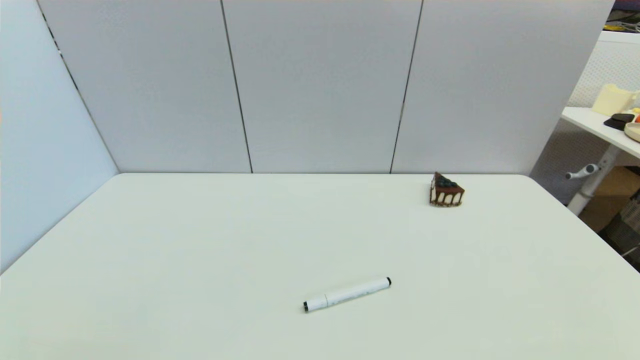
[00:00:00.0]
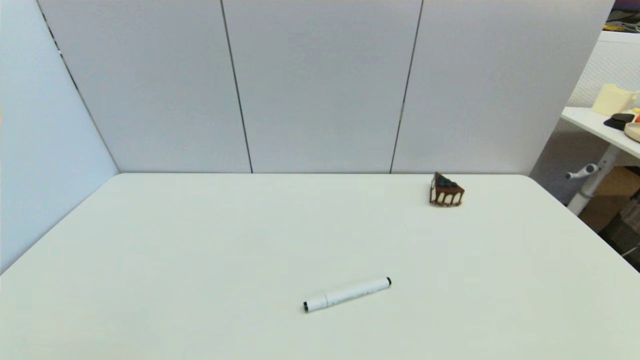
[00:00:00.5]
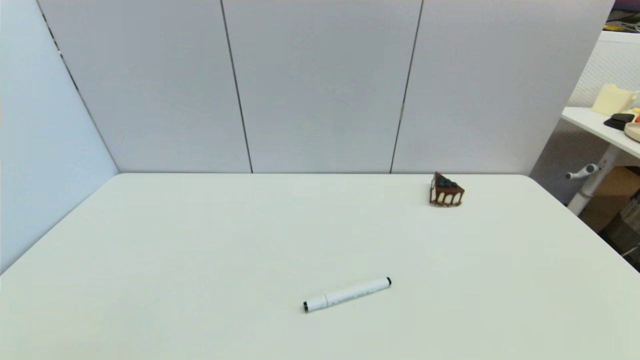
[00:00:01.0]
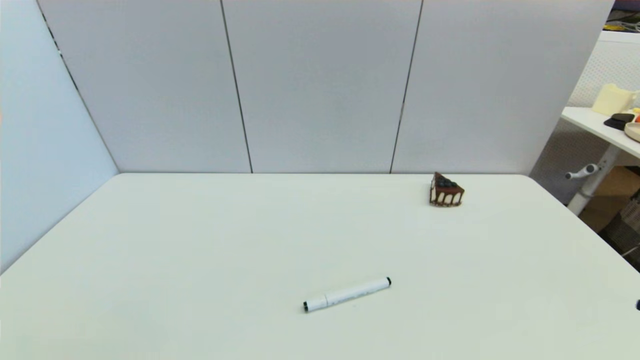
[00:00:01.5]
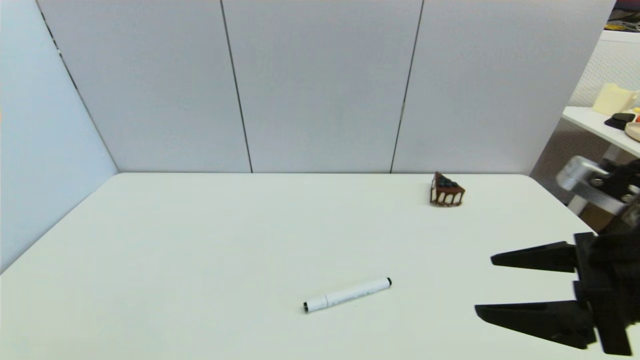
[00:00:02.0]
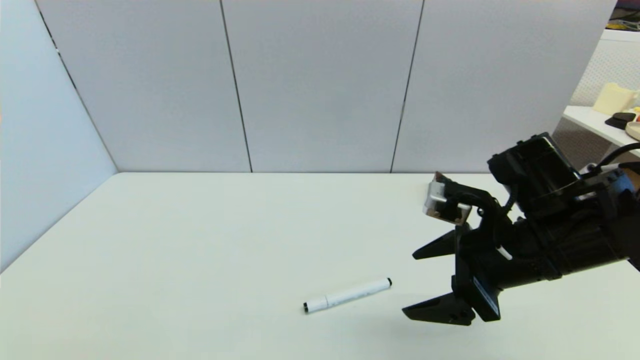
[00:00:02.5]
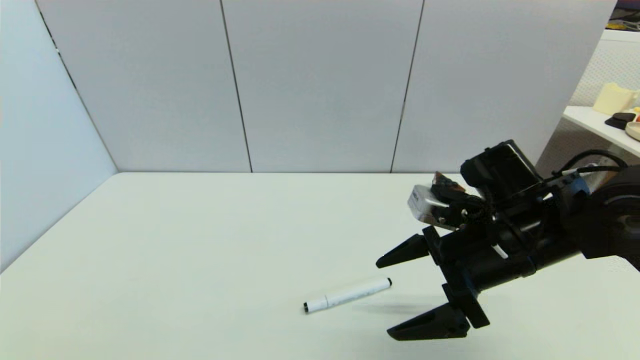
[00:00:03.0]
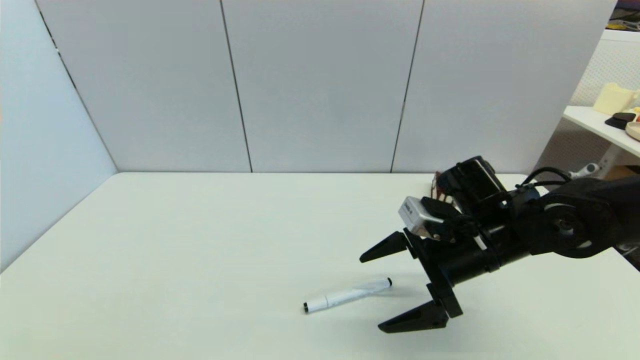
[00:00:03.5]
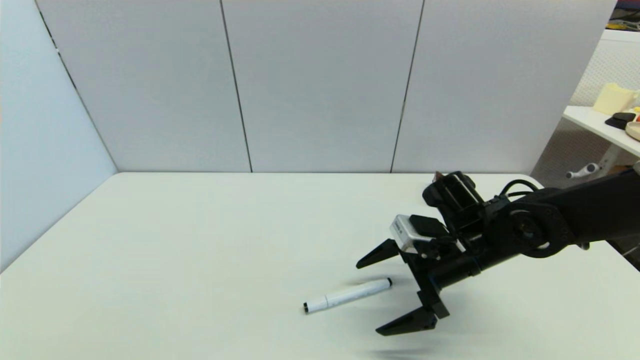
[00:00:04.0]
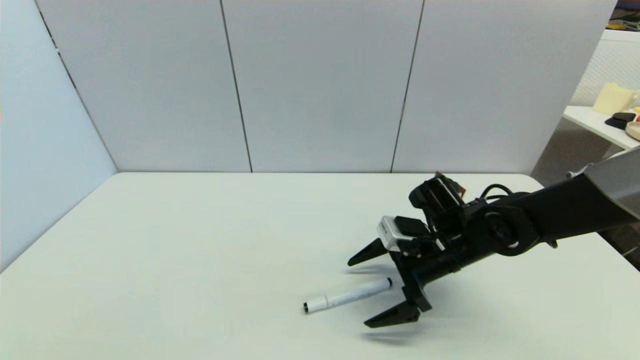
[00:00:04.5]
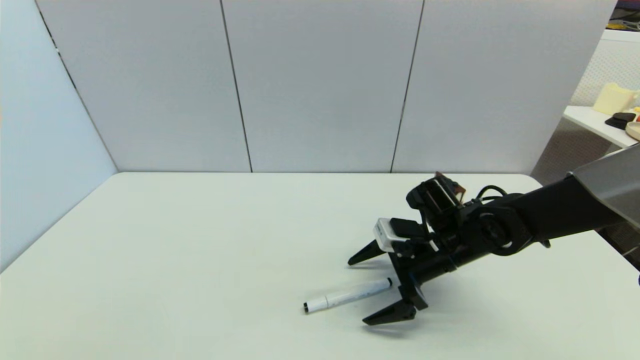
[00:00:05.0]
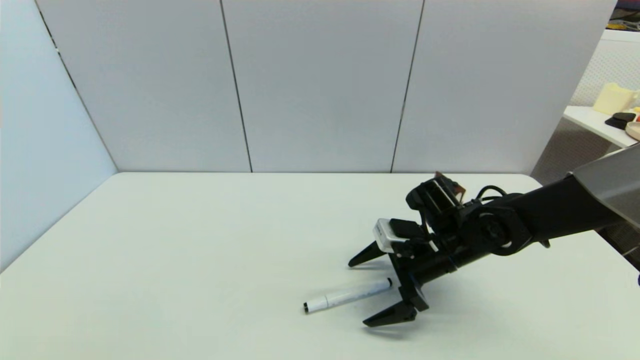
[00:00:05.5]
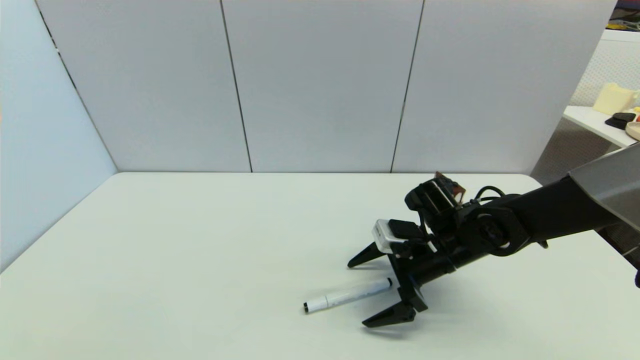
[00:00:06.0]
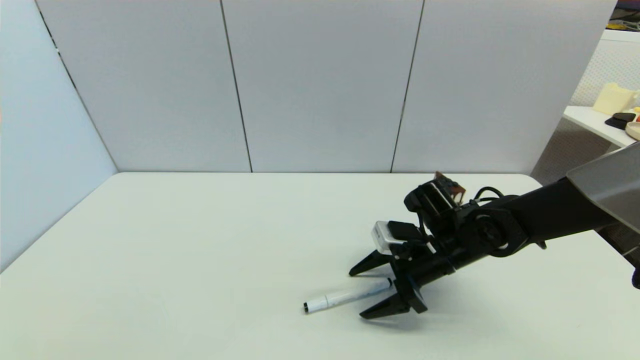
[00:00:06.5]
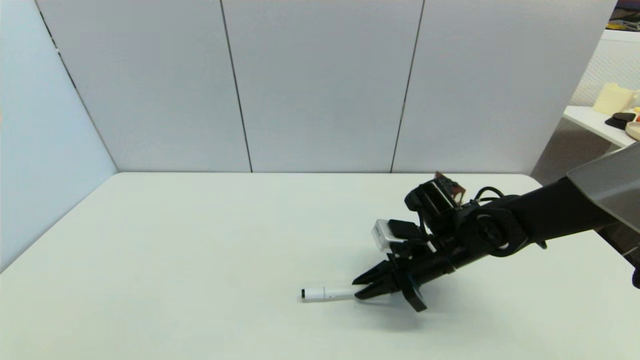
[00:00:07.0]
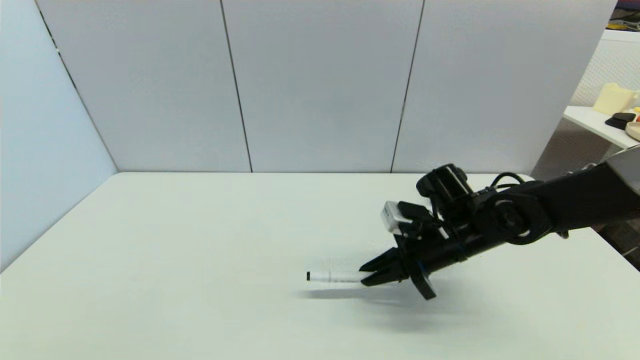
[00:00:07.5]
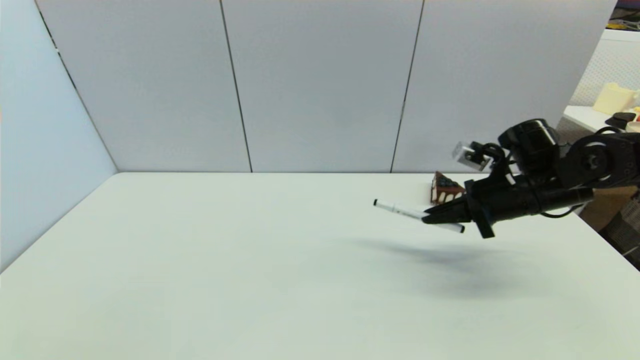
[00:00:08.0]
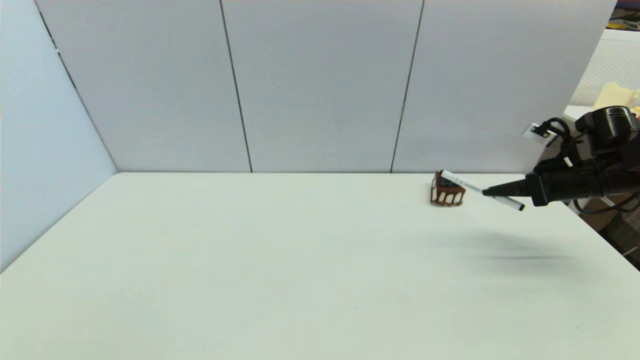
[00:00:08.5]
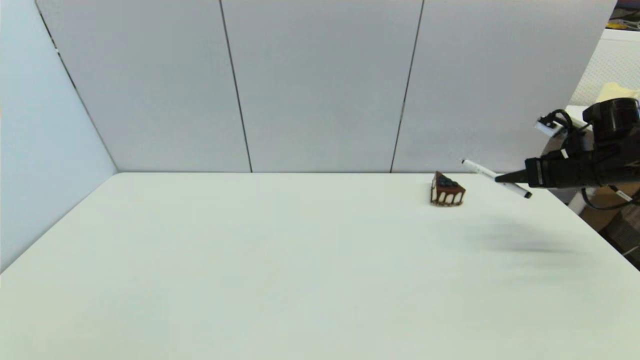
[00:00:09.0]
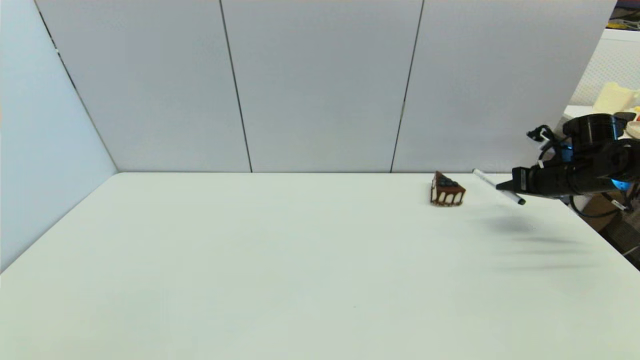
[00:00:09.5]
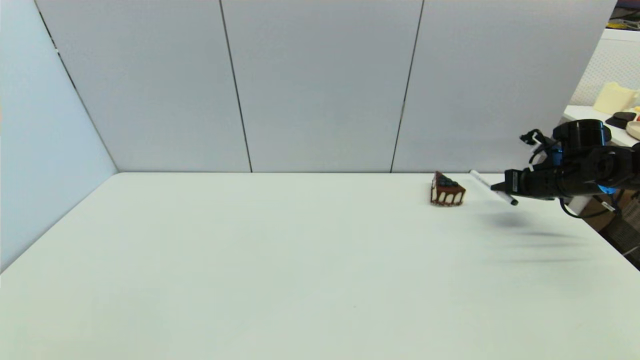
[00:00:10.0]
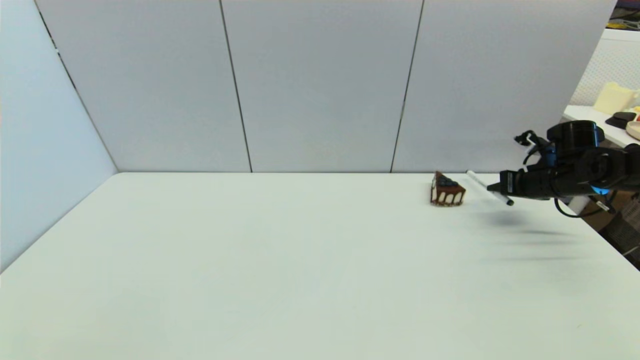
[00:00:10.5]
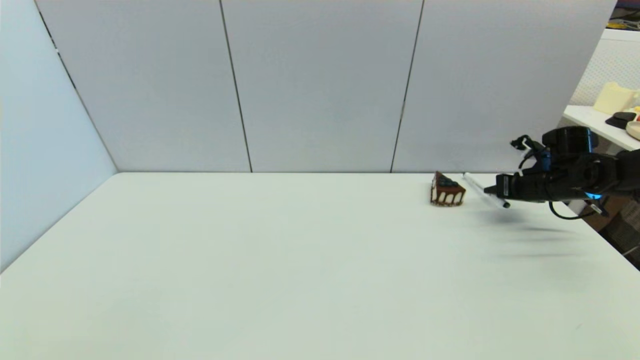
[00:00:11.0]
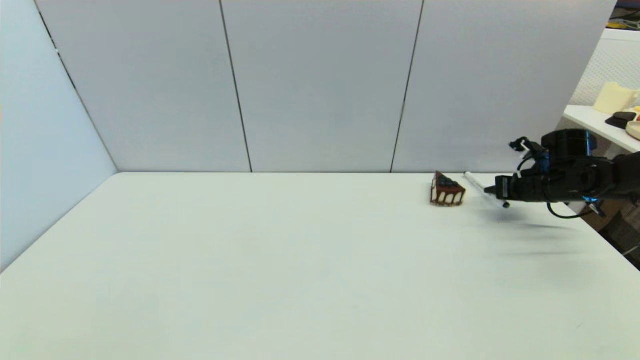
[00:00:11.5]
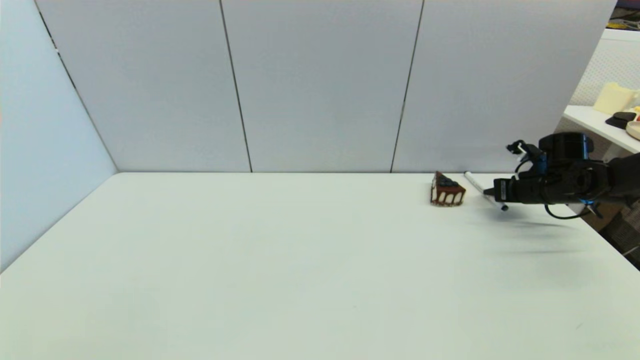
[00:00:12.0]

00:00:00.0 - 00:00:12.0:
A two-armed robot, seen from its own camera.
Task of the whole recording: put the black marker in the designated position.
Step, 00:00:02.0 - 00:00:07.0: Grasp the Marker pen with right gripper.
00:00:00.0 - 00:00:02.0: The right gripper travels forward, upward and to the left by approximately 25 cm.
00:00:02.0 - 00:00:04.0: The right gripper shifts roughly 20 cm forward, downward and to the left.
00:00:04.0 - 00:00:06.0: There are only small adjustments of the grippers.
00:00:06.0 - 00:00:08.0: The right gripper travels to the right and upward by approximately 15 cm, and closes.
00:00:08.0 - 00:00:10.0: The right gripper travels to the right and forward by some 15 cm.
00:00:10.0 - 00:00:12.0: The grippers move only a little.

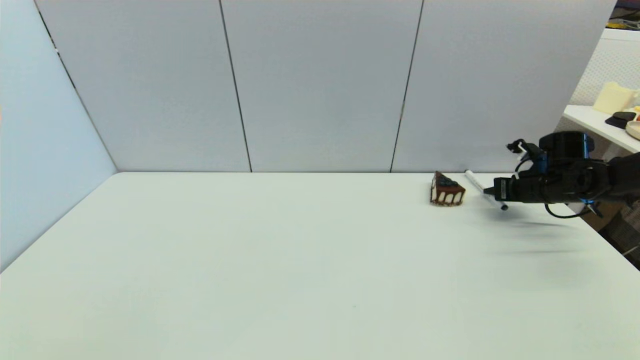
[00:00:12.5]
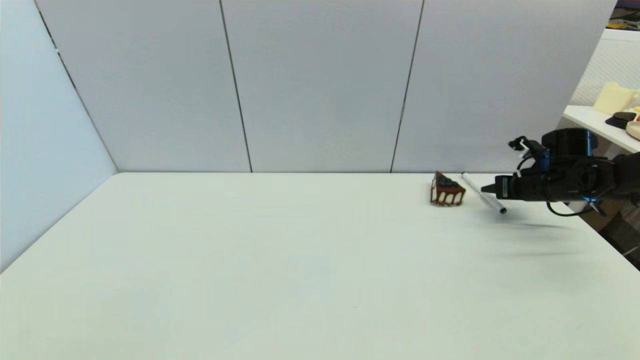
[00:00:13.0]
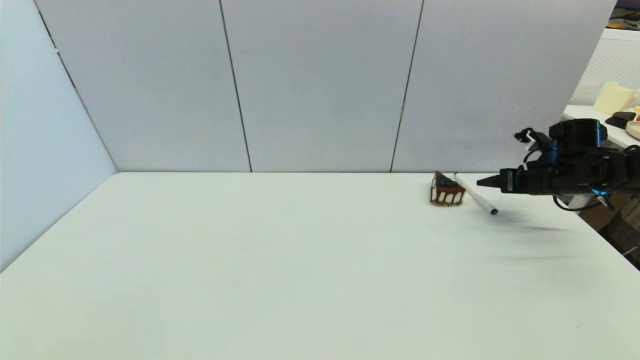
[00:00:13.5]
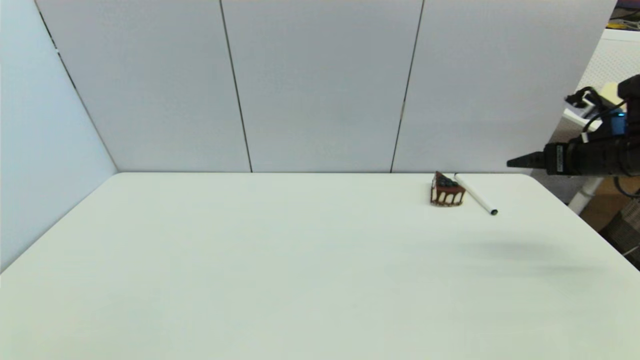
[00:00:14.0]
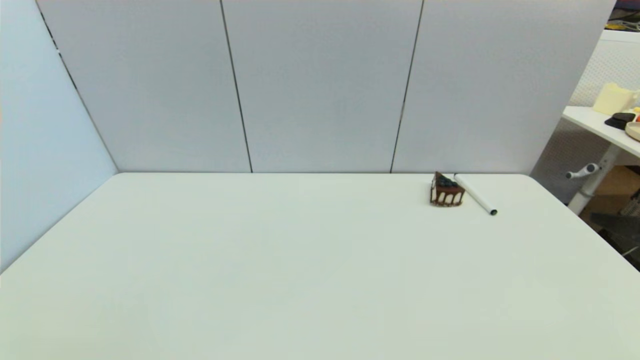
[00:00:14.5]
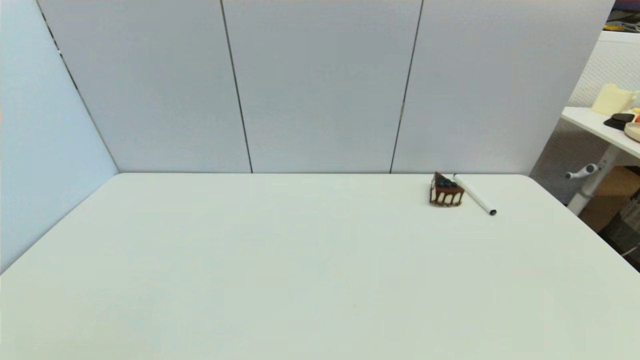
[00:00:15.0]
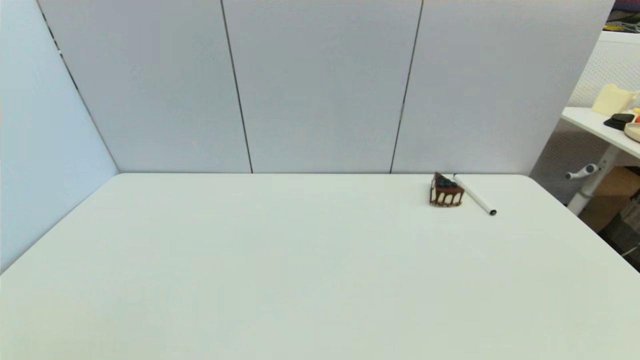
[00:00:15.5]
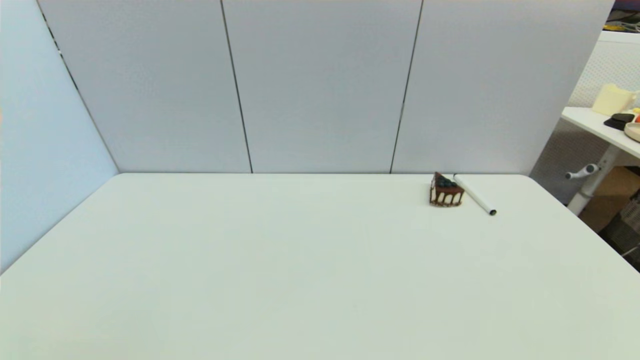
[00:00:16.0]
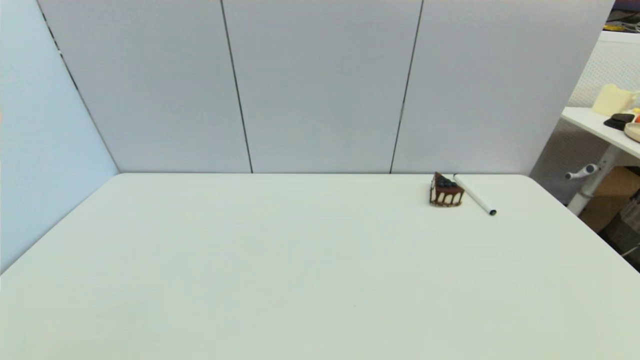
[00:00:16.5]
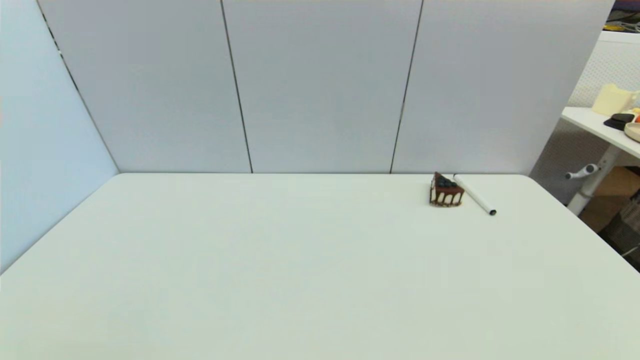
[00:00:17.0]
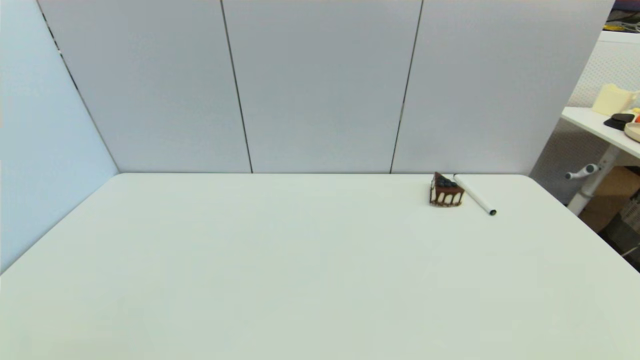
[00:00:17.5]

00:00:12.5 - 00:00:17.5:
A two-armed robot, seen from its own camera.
Task of the whole recording: put the black marker in the designated position.
00:00:12.5 - 00:00:15.0: The right gripper is displaced backward by about 40 cm, and opens.

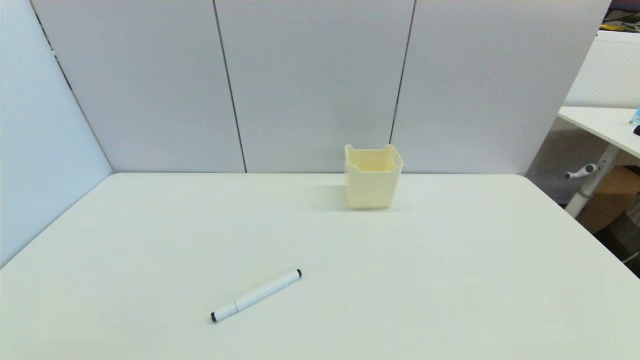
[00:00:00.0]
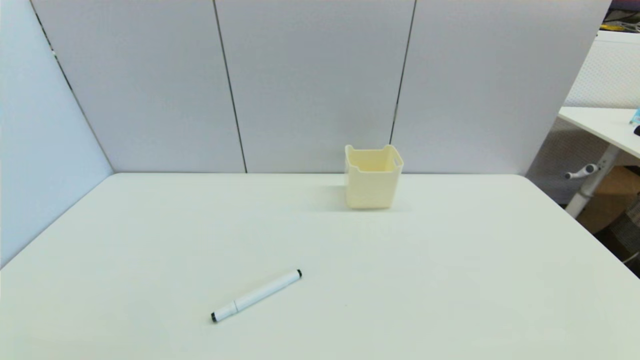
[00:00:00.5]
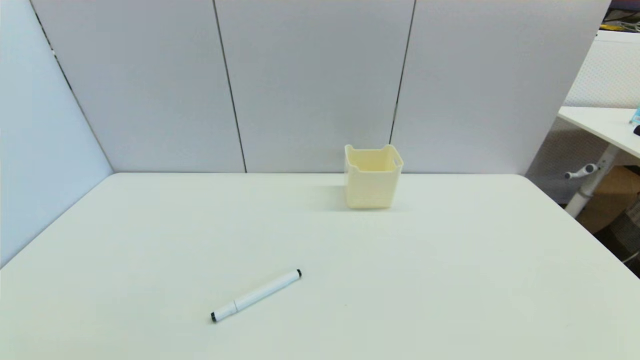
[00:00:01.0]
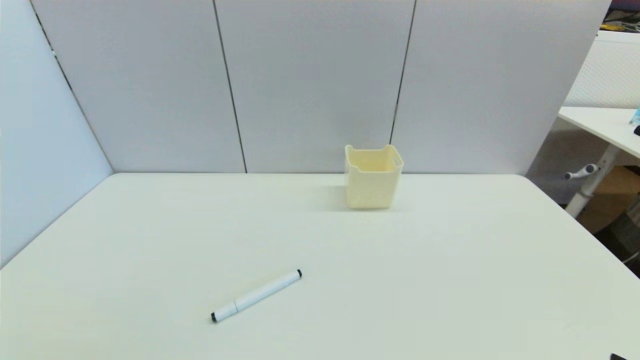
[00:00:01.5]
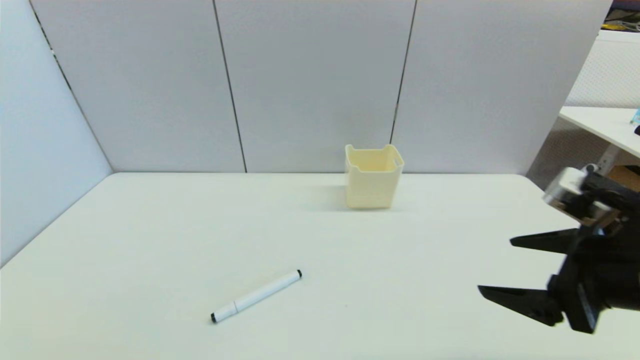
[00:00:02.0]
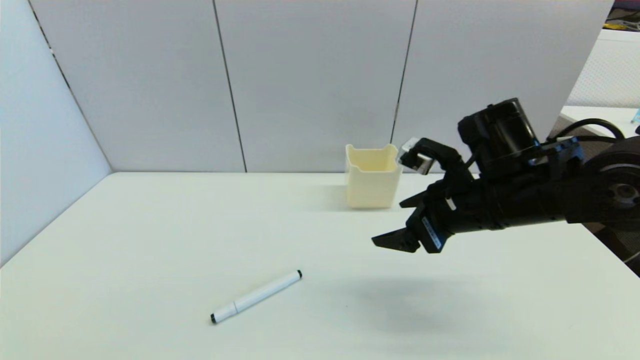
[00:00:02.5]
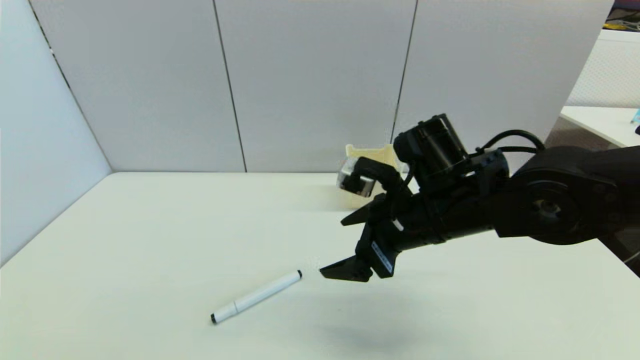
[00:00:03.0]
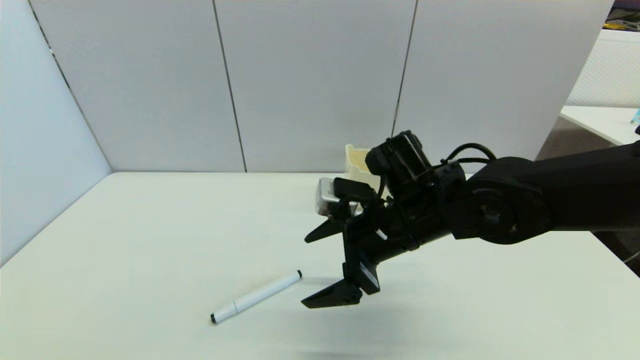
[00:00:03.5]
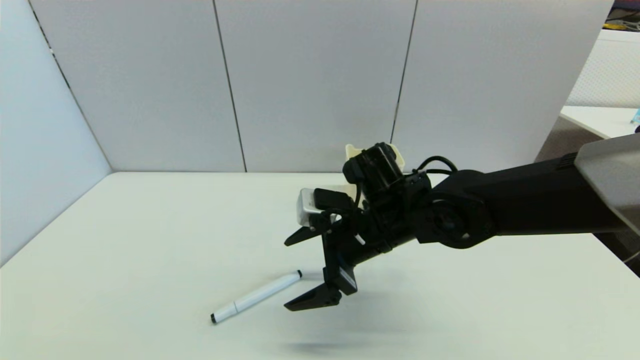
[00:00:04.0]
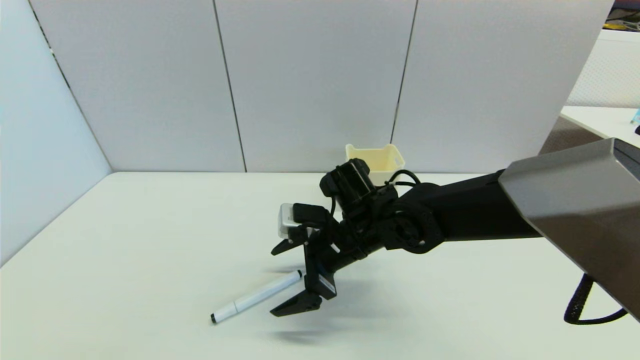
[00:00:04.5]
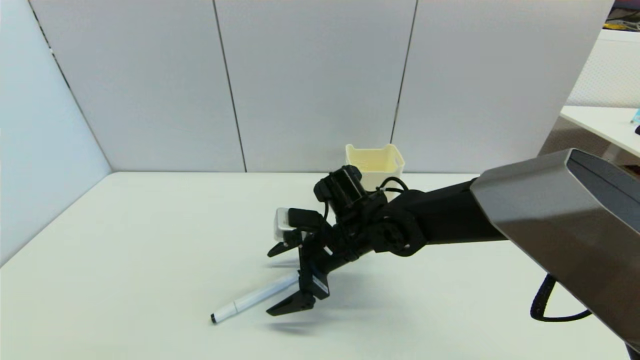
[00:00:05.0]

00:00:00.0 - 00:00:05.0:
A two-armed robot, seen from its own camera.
Task of the whole recording: put the black marker in the designated position.
00:00:00.0 - 00:00:02.5: The right gripper shifts about 35 cm forward, to the left and upward.
00:00:02.5 - 00:00:05.0: The right gripper shifts roughly 20 cm to the left and downward.
